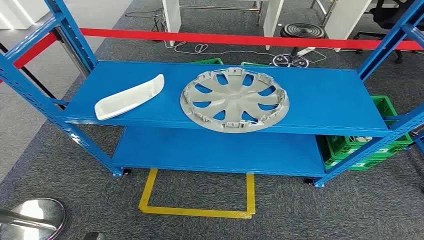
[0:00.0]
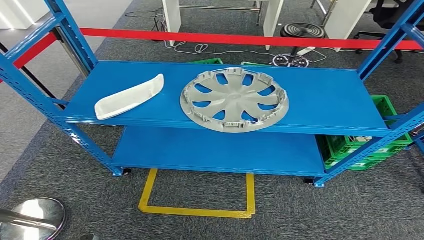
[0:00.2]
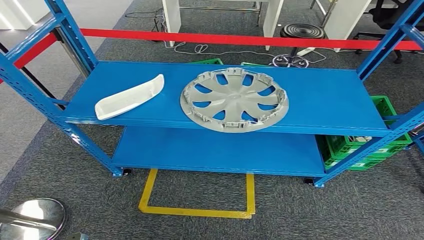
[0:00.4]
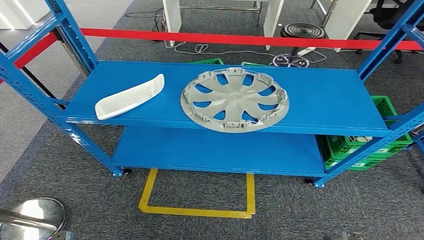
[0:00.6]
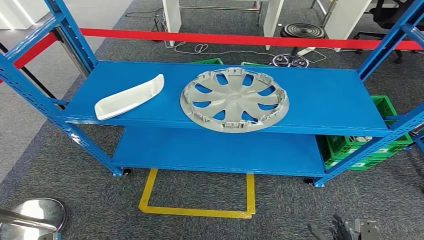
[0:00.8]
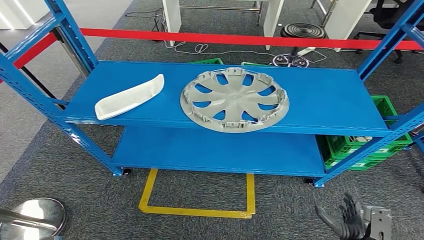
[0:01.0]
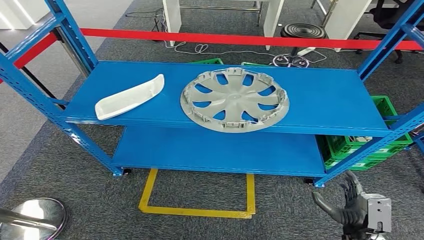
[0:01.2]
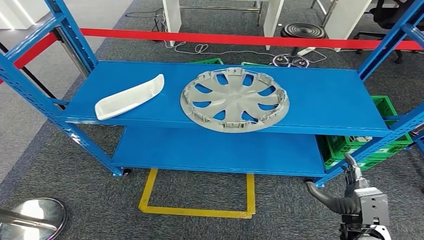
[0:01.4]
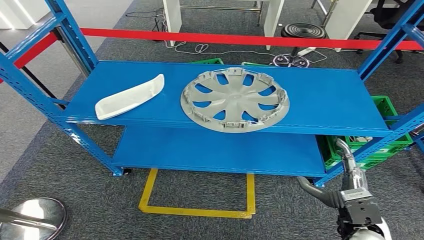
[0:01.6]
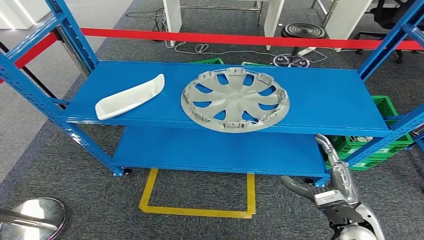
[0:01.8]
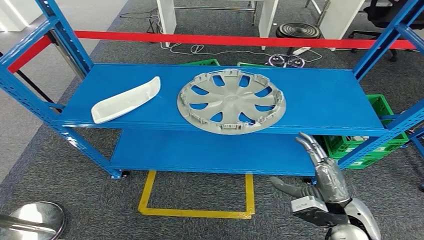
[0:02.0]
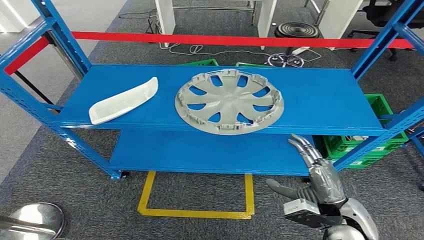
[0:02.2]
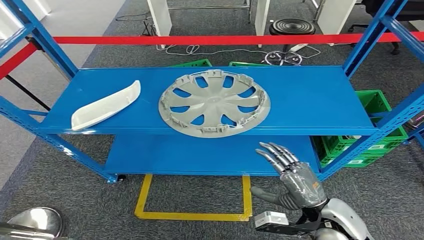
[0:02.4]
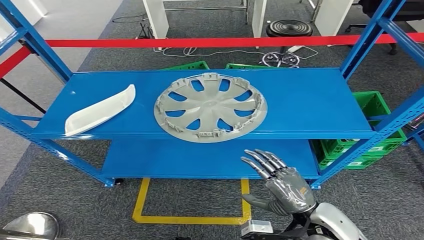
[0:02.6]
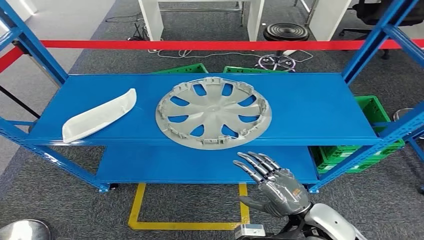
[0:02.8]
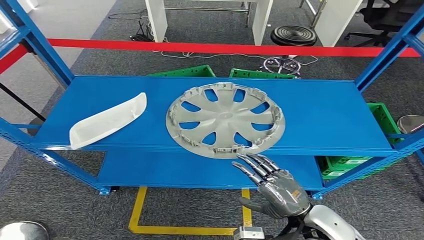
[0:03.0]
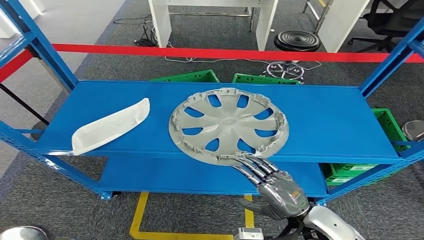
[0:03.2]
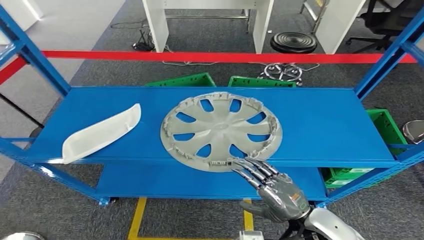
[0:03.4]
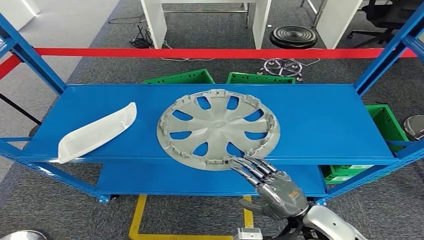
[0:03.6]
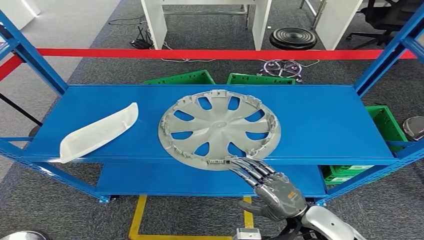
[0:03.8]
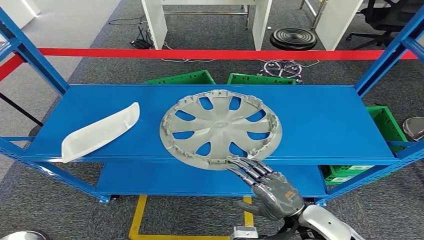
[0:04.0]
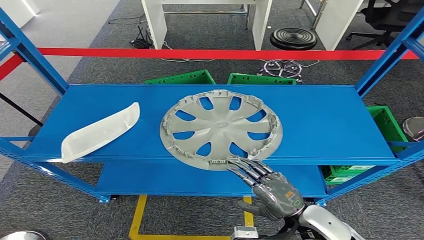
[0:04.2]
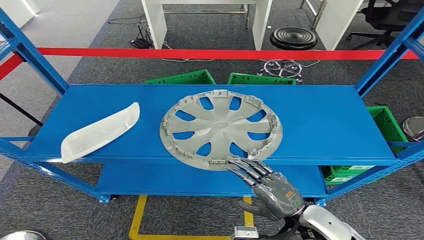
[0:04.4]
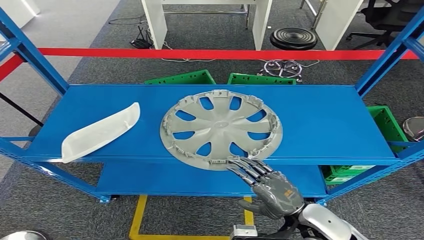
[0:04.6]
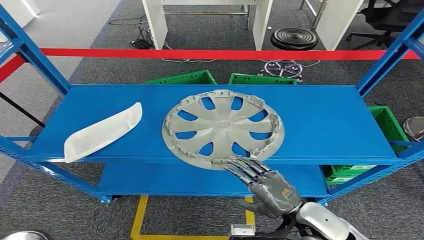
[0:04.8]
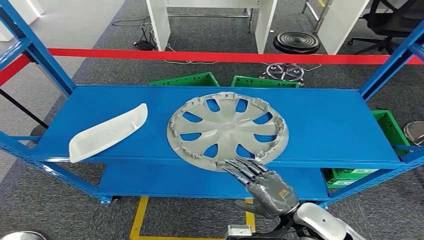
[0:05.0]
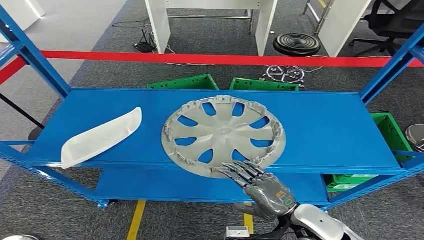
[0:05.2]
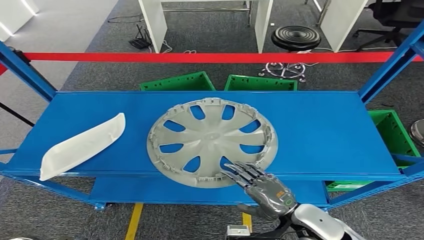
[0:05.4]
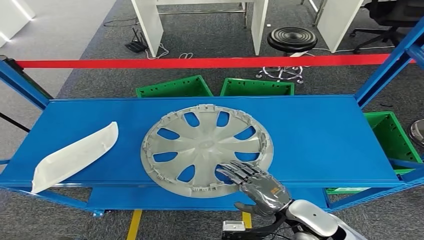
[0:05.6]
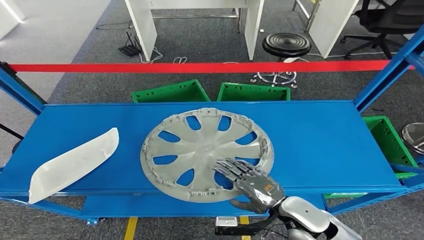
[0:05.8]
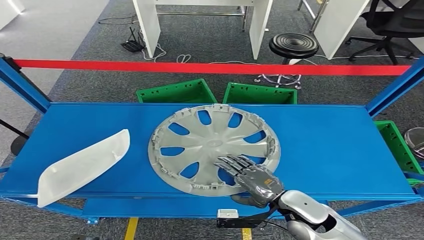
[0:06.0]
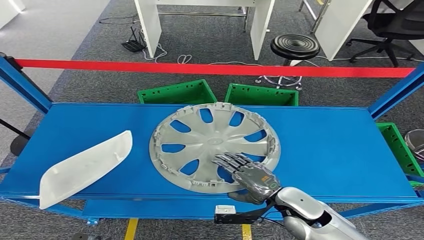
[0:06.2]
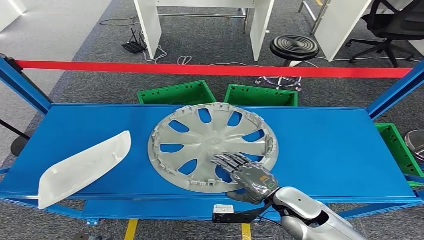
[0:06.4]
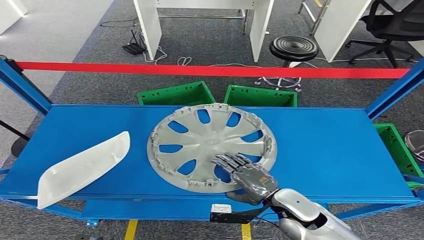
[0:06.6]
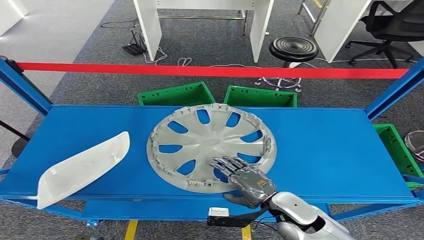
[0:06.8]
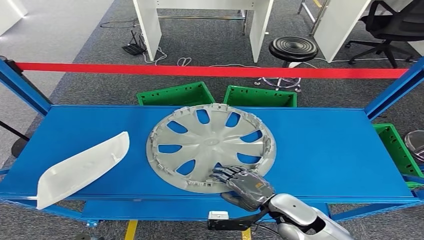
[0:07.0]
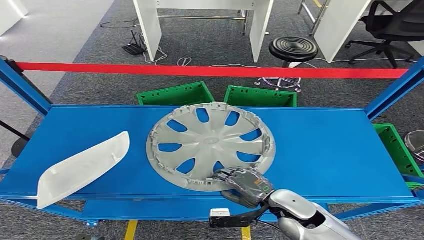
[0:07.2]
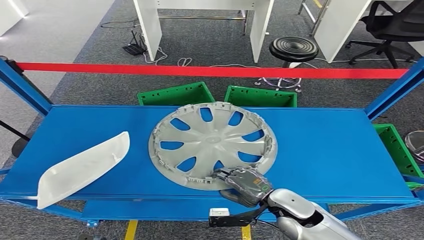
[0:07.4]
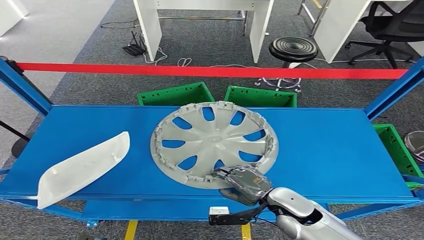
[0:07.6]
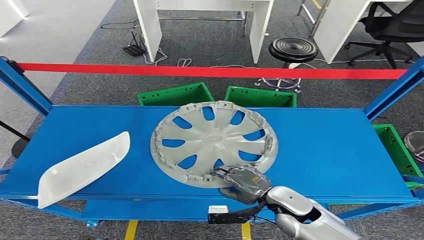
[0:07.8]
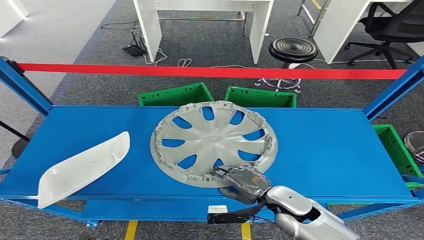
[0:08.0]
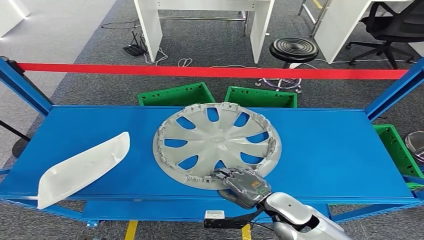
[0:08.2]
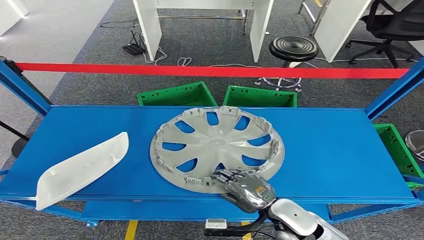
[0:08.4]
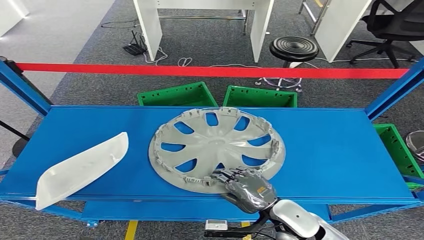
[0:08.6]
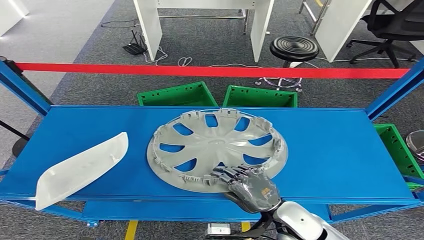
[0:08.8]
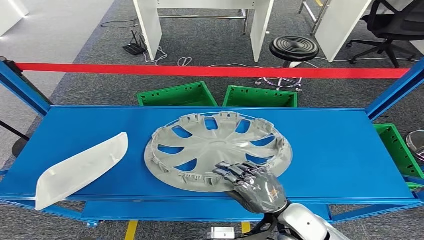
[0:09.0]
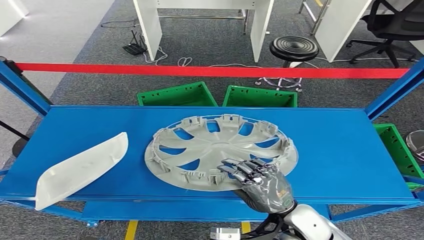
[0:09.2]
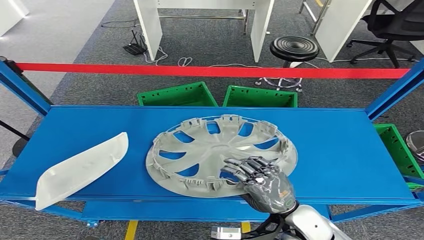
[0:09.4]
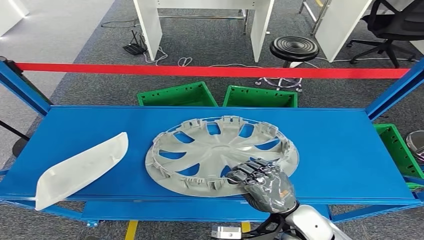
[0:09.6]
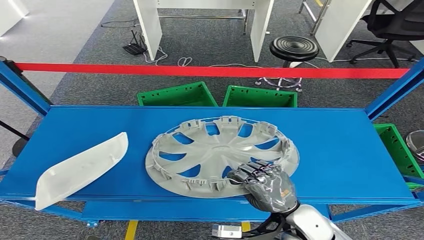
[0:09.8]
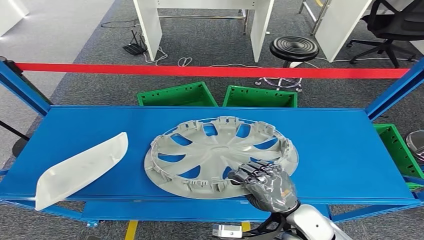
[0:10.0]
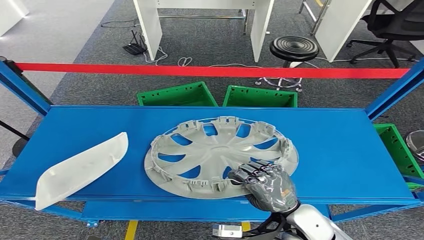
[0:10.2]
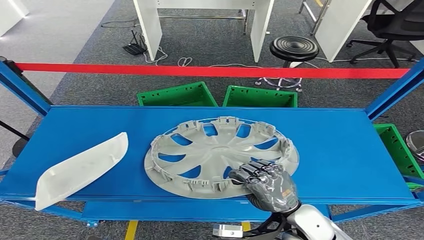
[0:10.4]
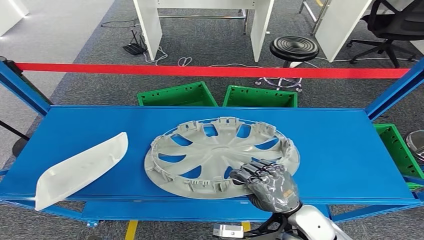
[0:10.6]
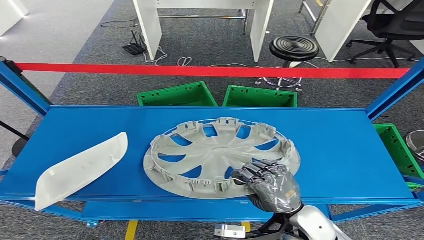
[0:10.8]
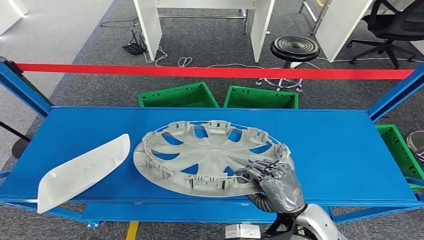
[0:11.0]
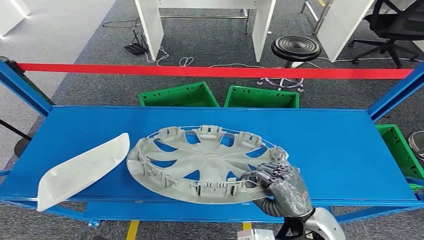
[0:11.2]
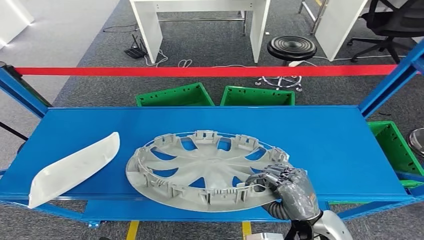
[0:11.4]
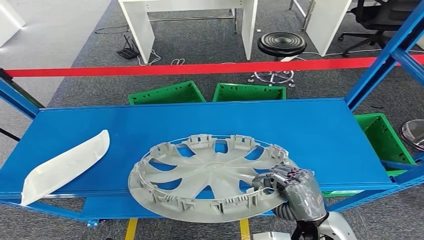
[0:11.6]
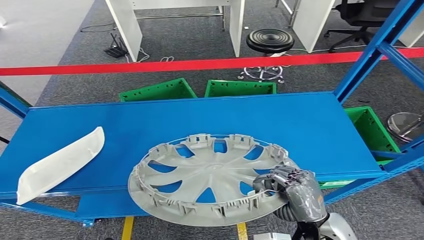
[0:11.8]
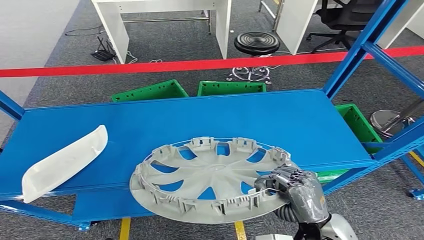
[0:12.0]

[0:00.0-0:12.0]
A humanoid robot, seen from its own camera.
0:07.6 to 0:09.0: The right hand ends up approximately 5 cm from where it was.
0:09.0 to 0:10.4: The hands move only a little.

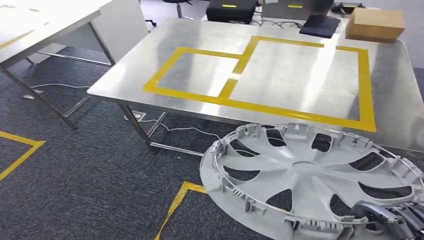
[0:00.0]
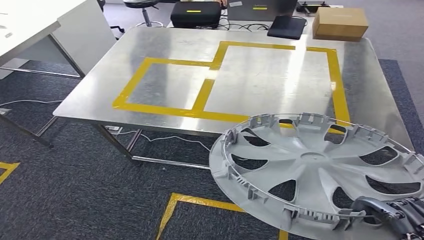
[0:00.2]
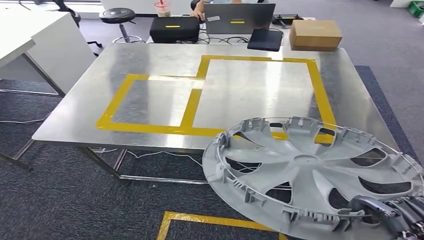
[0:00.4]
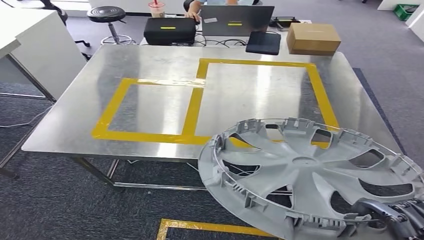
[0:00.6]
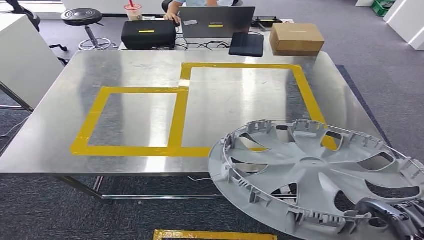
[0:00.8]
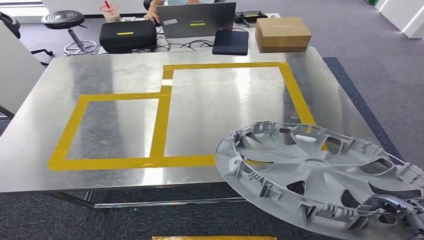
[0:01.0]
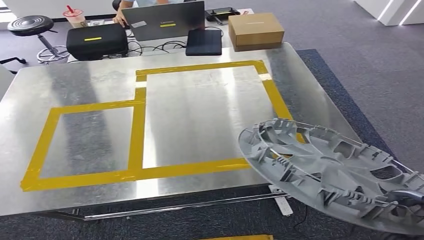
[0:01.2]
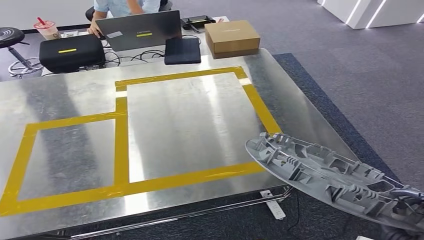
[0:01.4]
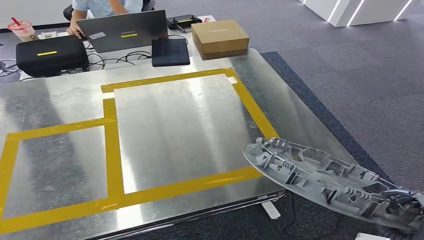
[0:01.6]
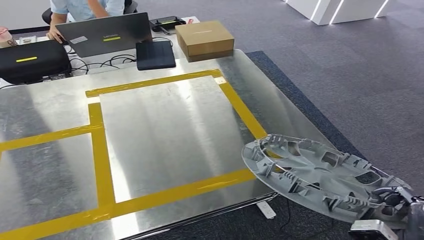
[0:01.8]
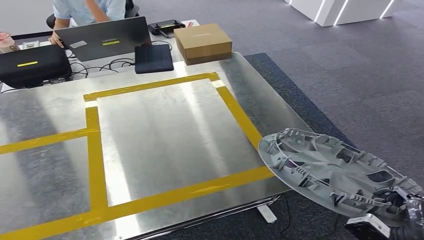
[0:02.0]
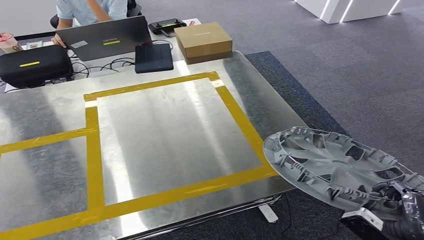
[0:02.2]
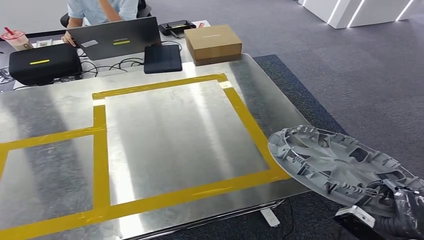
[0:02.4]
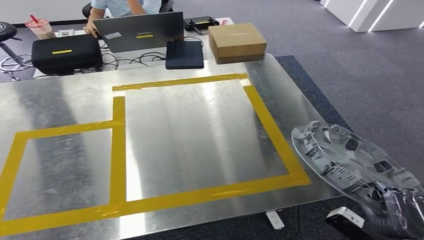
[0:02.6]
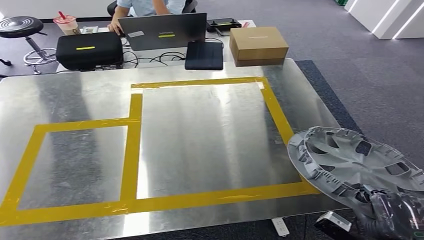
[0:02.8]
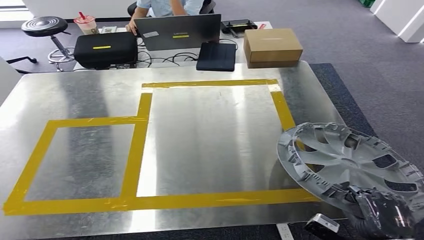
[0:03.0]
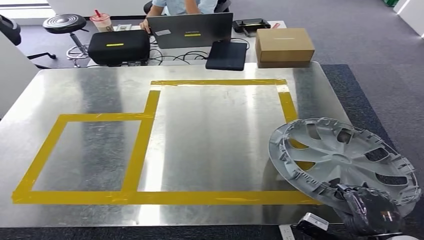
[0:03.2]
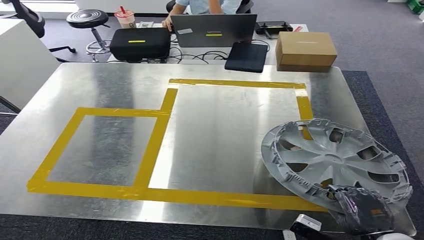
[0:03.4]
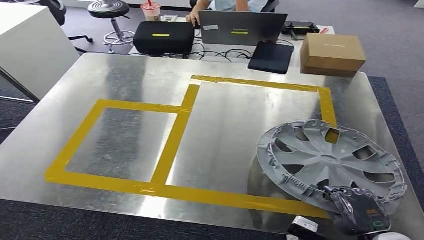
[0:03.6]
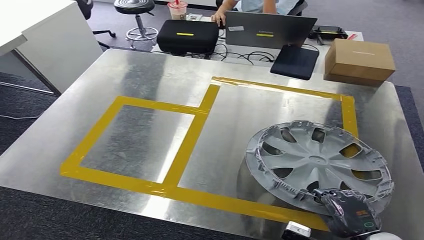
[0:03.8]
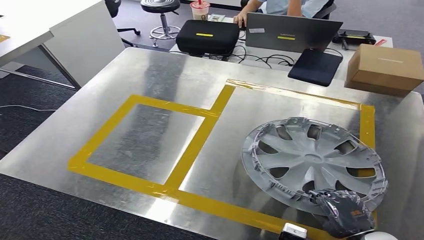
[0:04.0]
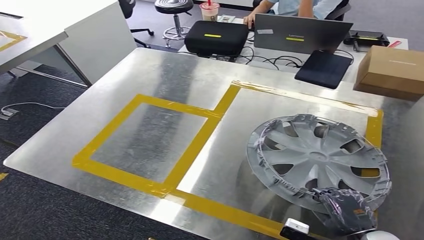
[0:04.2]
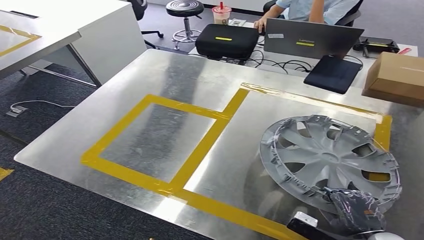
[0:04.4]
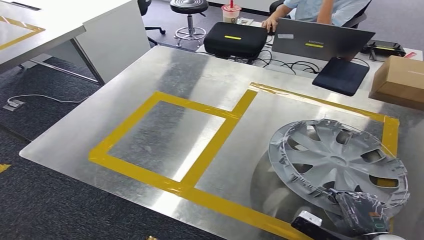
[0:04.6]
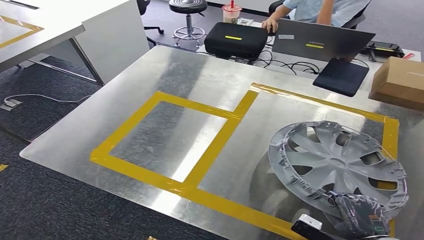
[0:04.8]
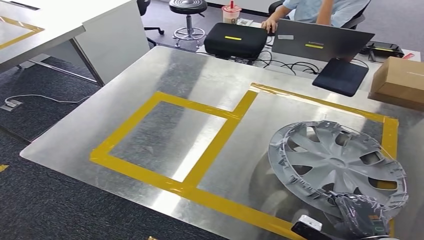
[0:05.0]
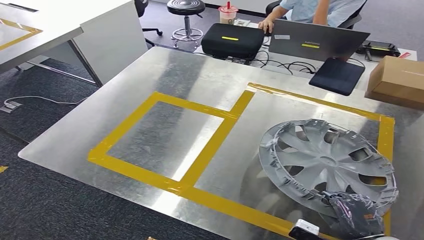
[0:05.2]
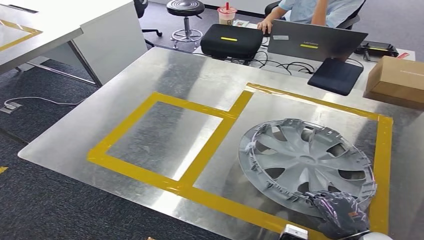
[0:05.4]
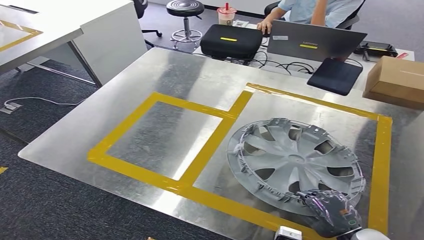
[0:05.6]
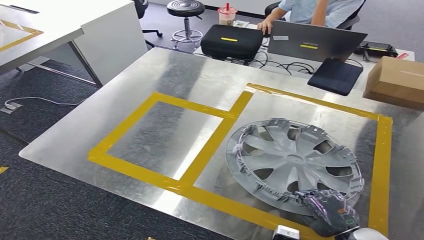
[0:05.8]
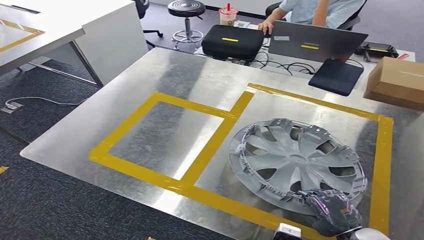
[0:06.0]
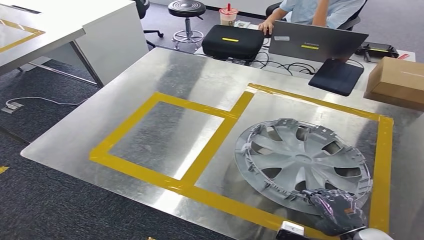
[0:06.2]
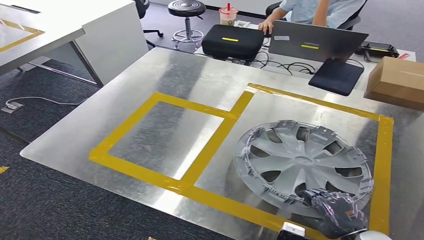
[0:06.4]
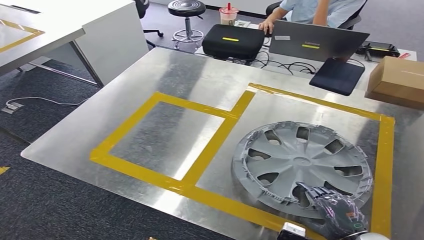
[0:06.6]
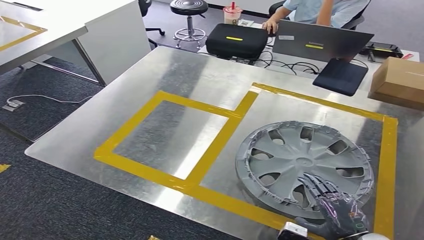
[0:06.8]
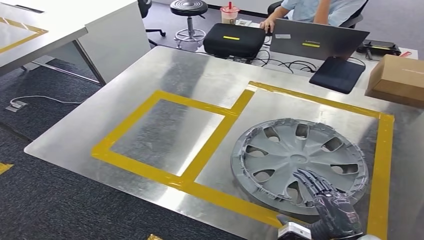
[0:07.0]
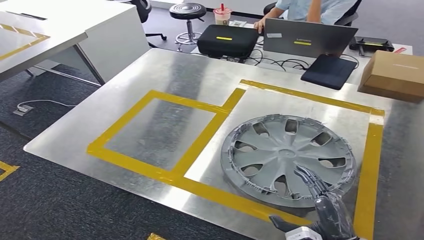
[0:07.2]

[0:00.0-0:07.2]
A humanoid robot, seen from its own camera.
Step, 0:00.0 to 0:02.6: Bring the small component to the front of the workbench.
